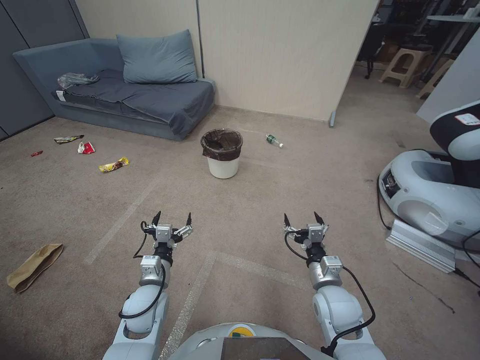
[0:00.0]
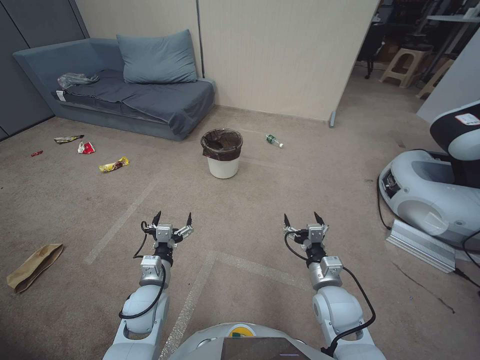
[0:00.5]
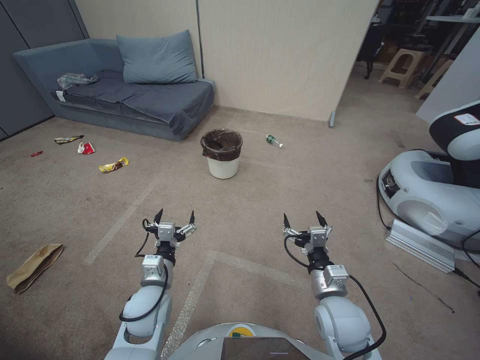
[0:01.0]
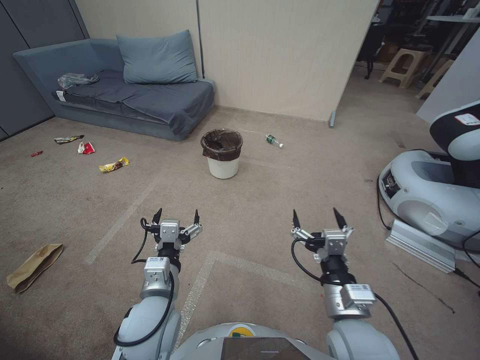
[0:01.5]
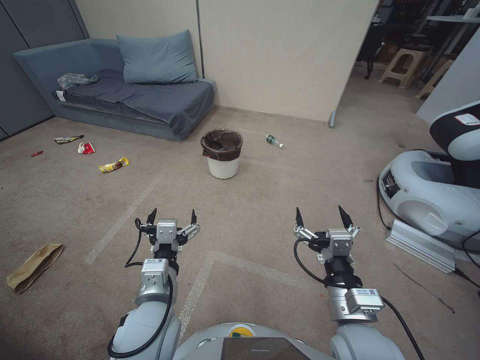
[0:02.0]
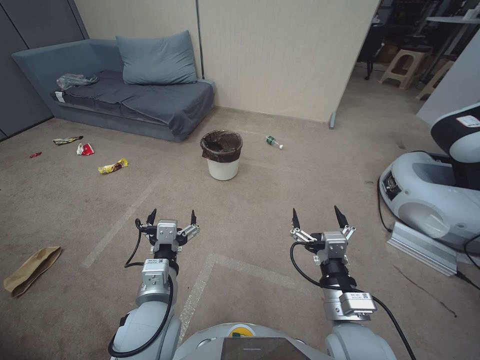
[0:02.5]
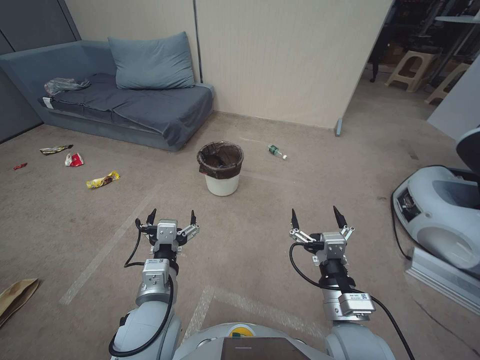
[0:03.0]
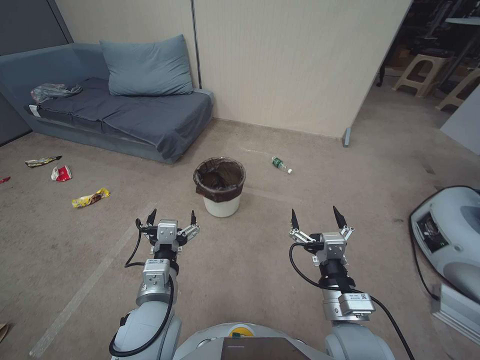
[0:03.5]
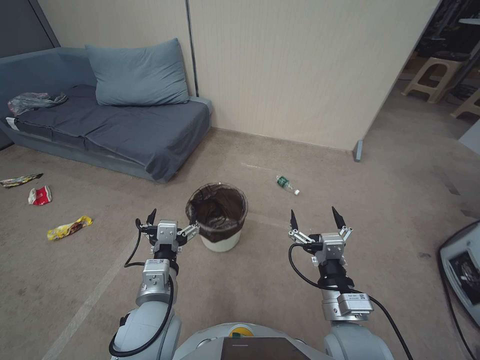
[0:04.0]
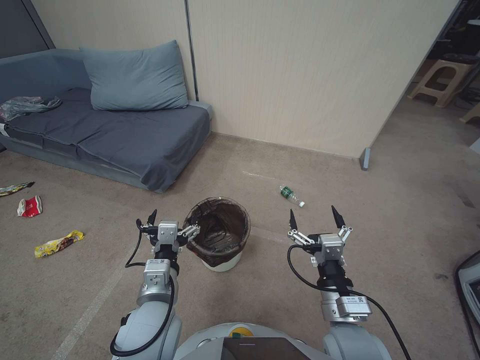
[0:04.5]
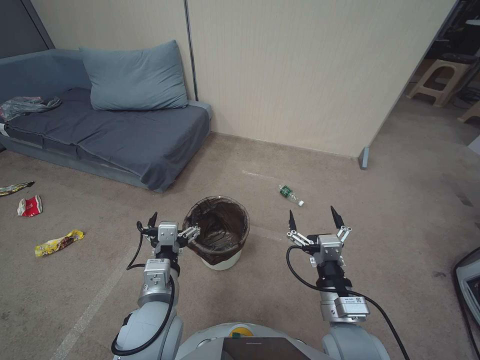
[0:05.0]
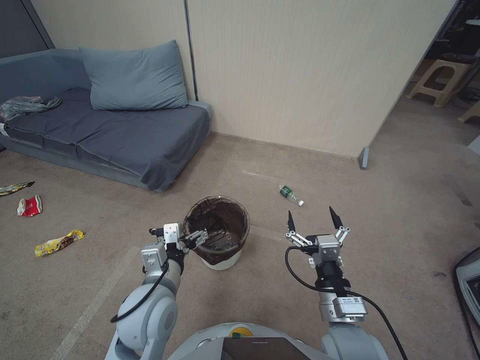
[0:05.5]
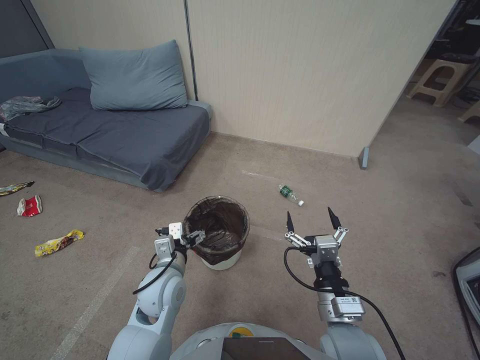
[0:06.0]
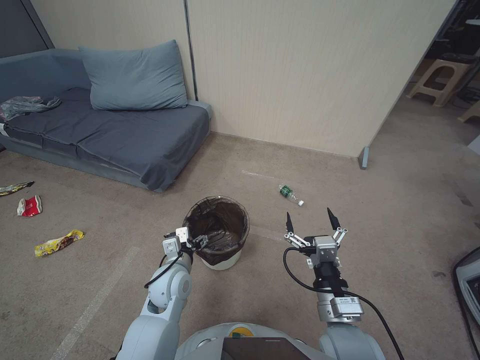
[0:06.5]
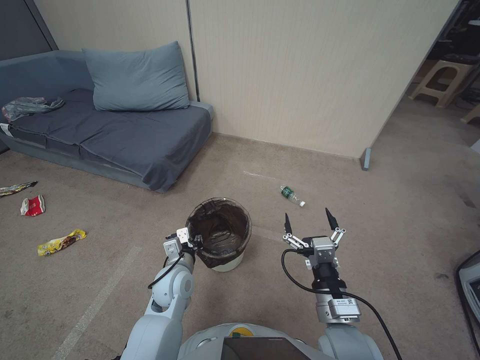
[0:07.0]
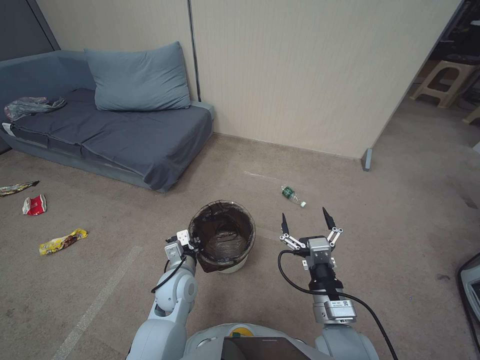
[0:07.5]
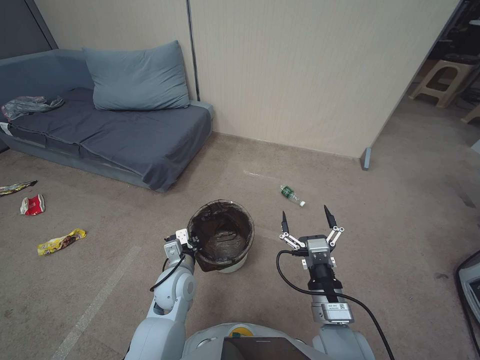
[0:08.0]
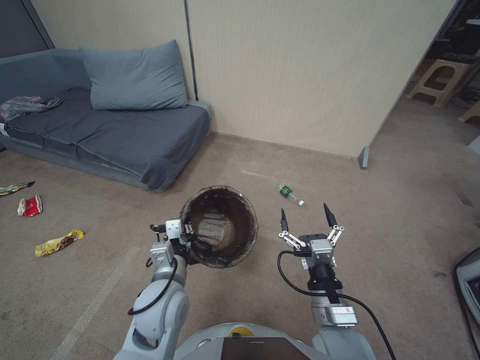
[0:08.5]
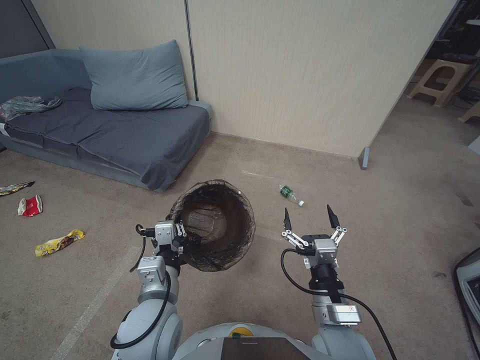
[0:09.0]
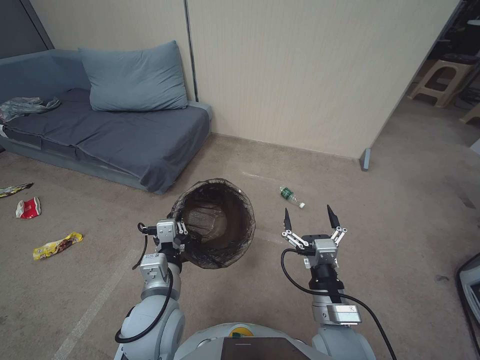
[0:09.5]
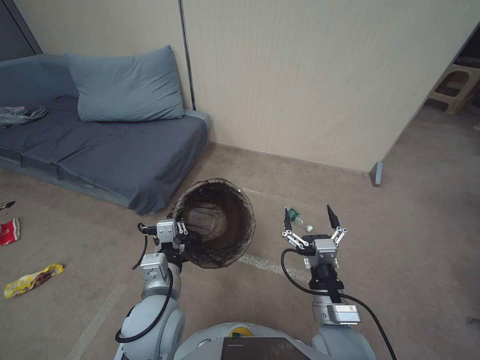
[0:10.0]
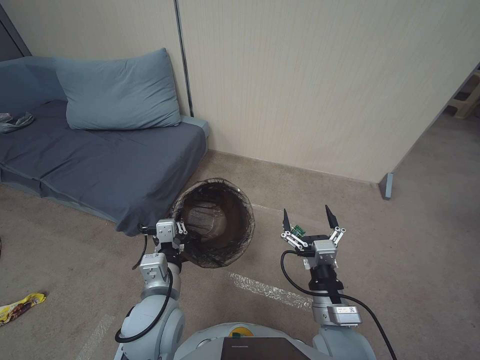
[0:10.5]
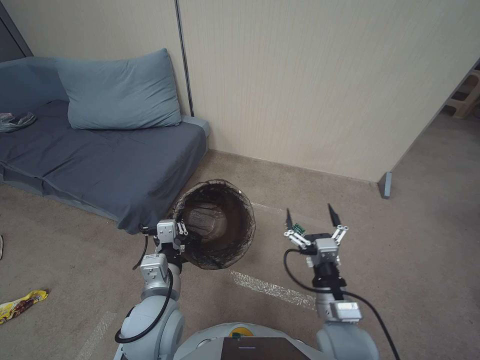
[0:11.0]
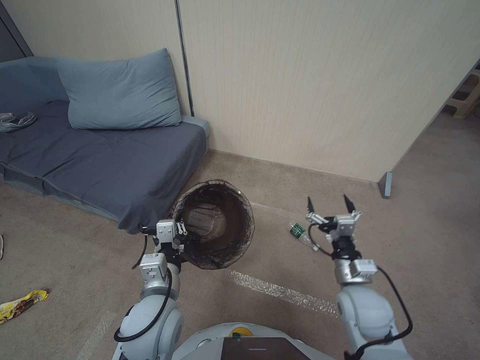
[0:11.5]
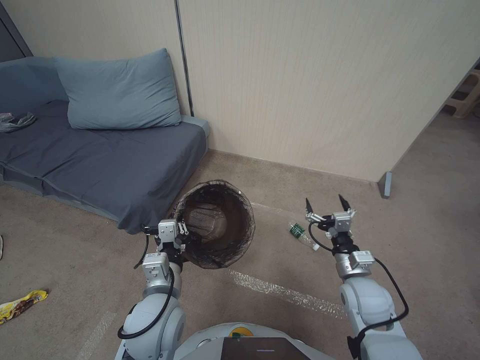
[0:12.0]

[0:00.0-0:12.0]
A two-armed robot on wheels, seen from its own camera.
Task of the whole recording: Pick up the trash bin, then pick up the garbage from the floor and place it into the trash bin.
0:04.0 to 0:06.0: The left gripper shifts some 10 cm forward and downward.
0:06.0 to 0:08.0: The left gripper shifts about 5 cm downward, and closes its fingers.
0:08.0 to 0:10.0: The left gripper moves upward and backward, about 15 cm.
0:10.0 to 0:12.0: The right gripper moves to the right and forward, roughly 15 cm.

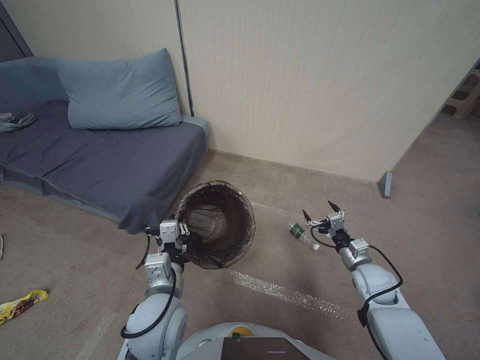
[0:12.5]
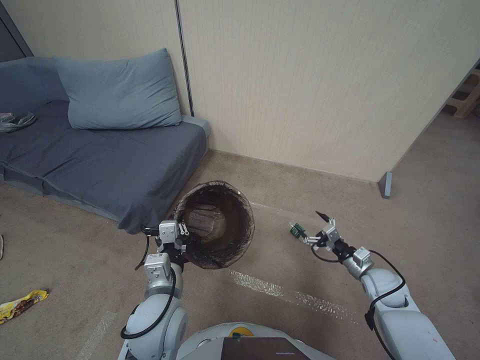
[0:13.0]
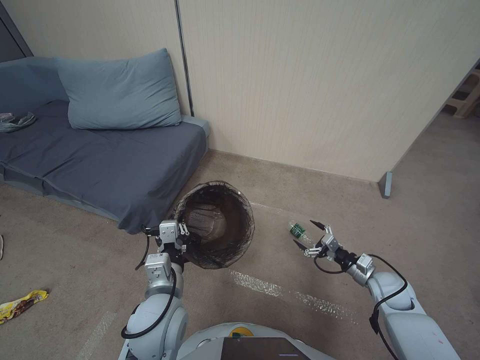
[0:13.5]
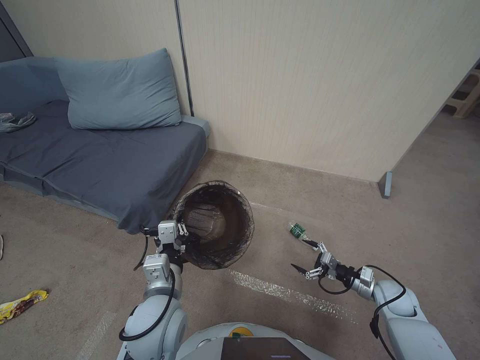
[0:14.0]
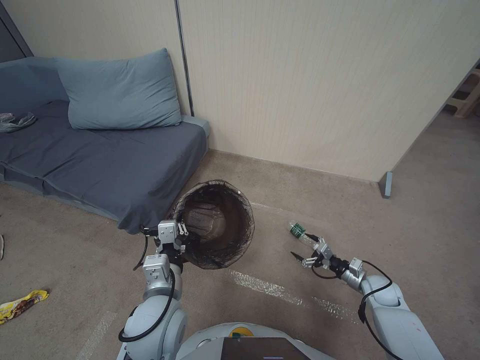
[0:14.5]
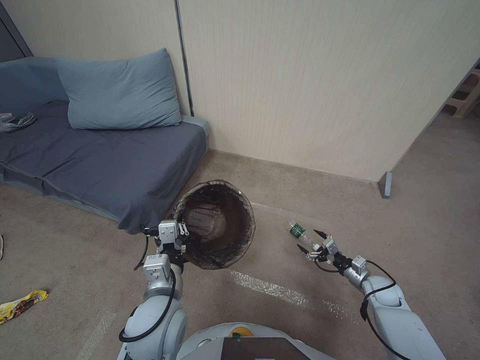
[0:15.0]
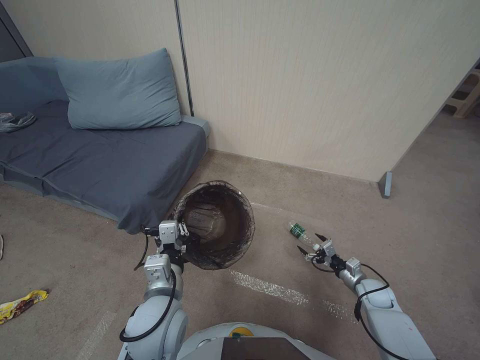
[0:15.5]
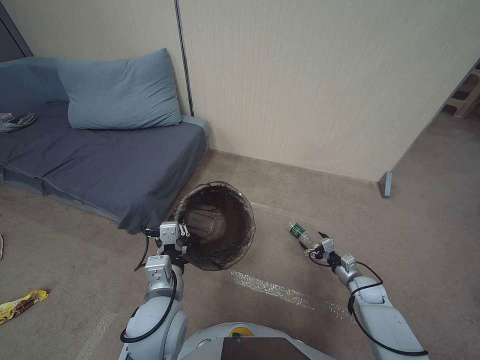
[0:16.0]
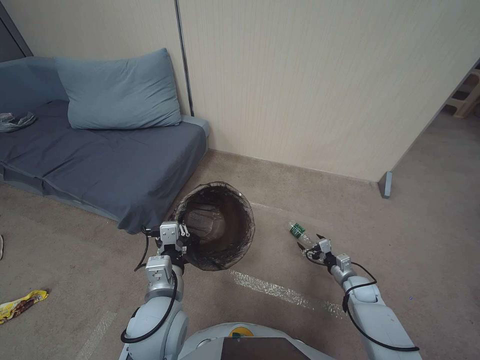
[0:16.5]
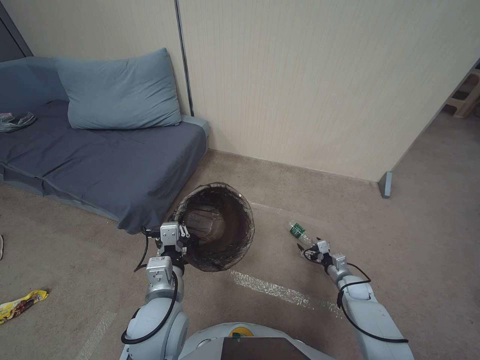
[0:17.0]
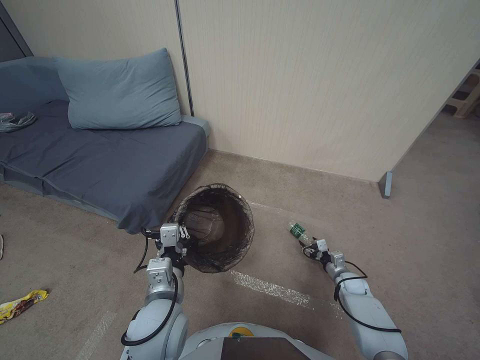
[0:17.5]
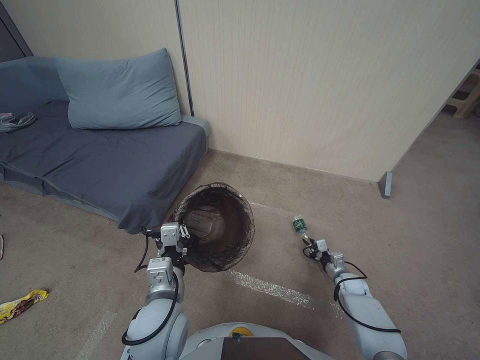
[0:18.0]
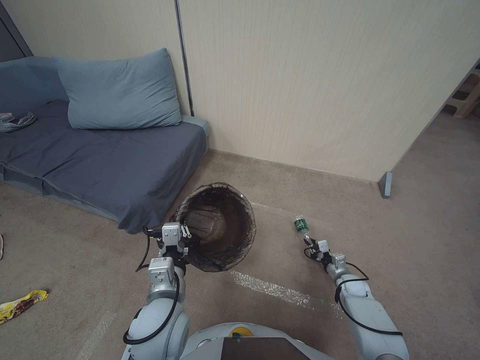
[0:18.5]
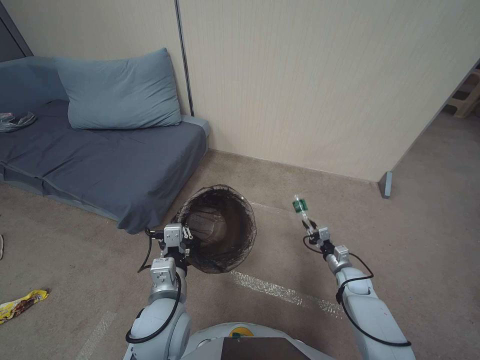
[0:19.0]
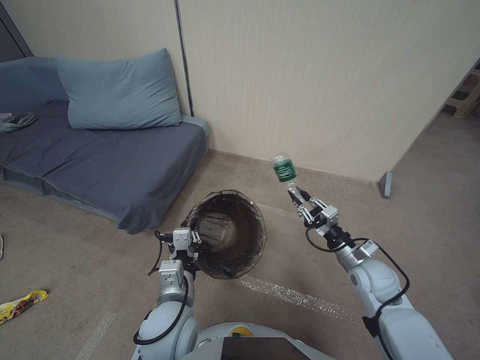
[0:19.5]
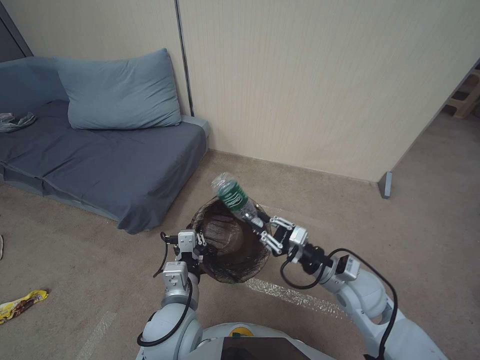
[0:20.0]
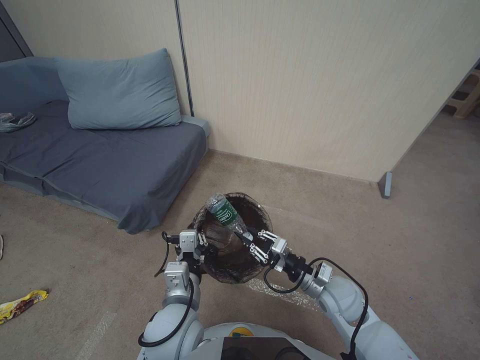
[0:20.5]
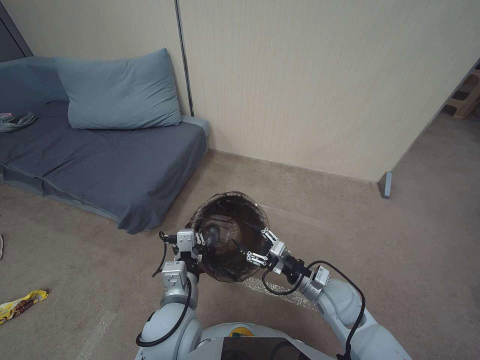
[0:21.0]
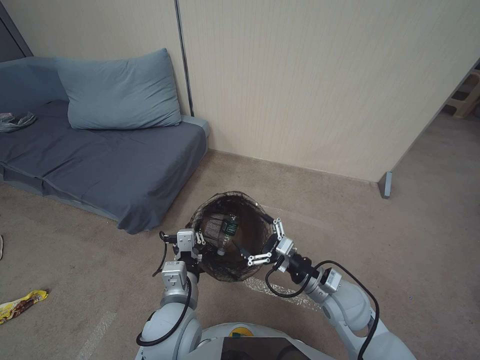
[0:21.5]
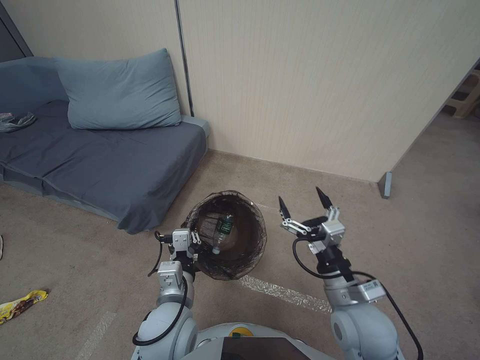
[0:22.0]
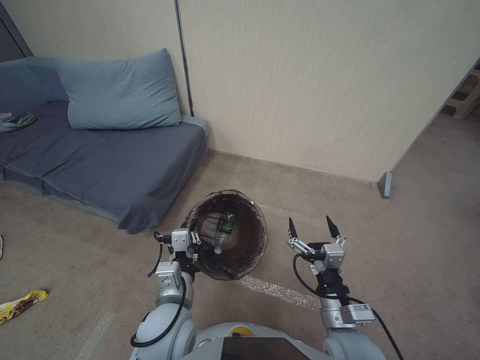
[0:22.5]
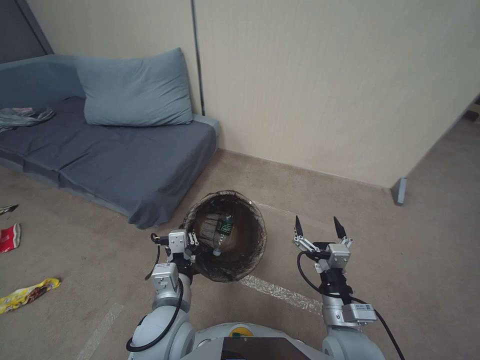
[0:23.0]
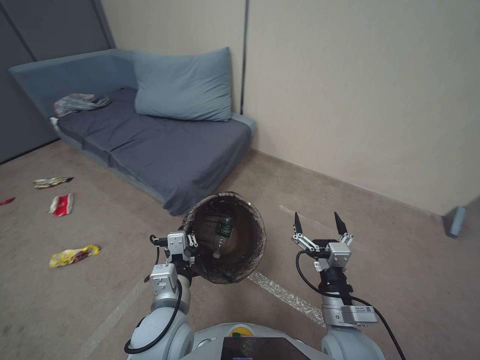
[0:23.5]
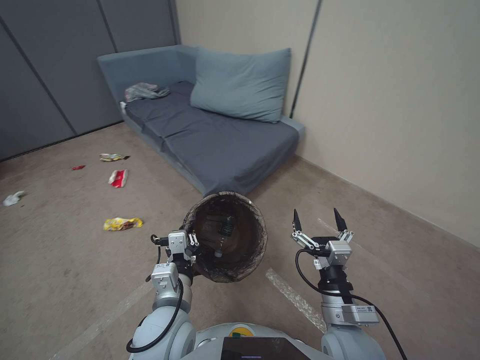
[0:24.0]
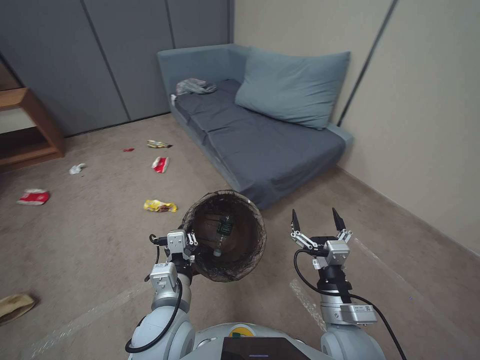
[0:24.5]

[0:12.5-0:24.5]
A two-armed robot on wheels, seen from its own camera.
Task of the whole recording: Pick up the trash bin, then pick up the garbage from the floor and place it into the trash bin.
0:12.5 to 0:14.5: The right gripper heads downward and to the right, covering about 10 cm.
0:14.5 to 0:16.5: The right gripper moves downward, about 5 cm.
0:16.5 to 0:18.5: The right gripper closes up.
0:18.5 to 0:20.5: The right gripper moves upward and to the left, some 30 cm.
0:20.5 to 0:22.5: The right gripper moves backward, approximately 10 cm, and opens up.

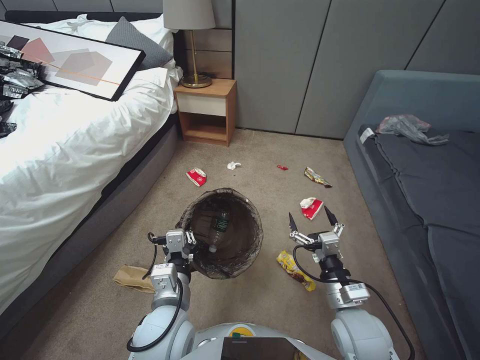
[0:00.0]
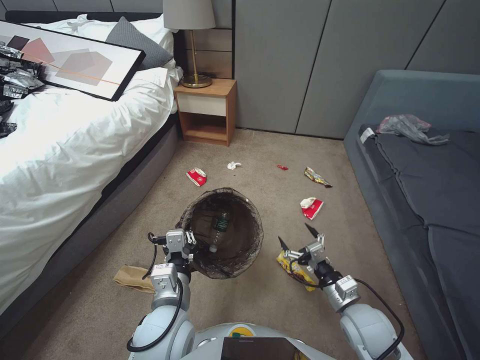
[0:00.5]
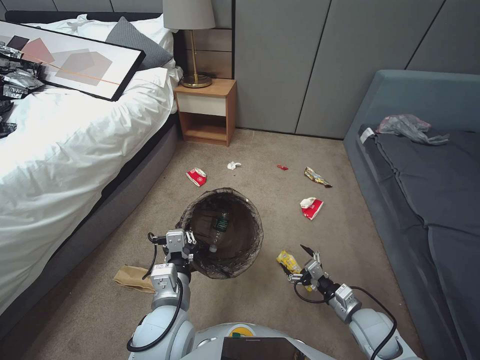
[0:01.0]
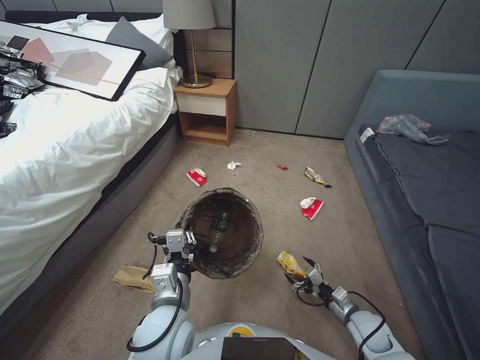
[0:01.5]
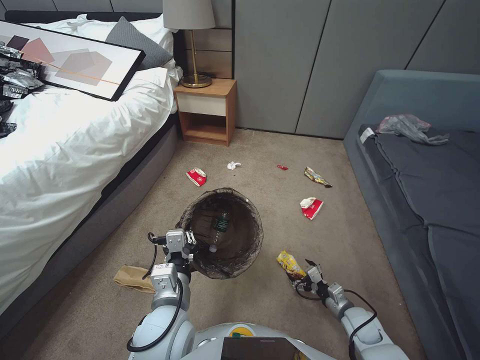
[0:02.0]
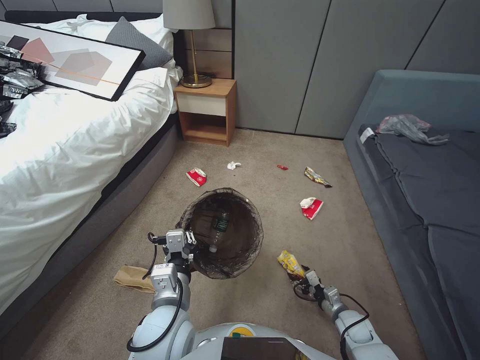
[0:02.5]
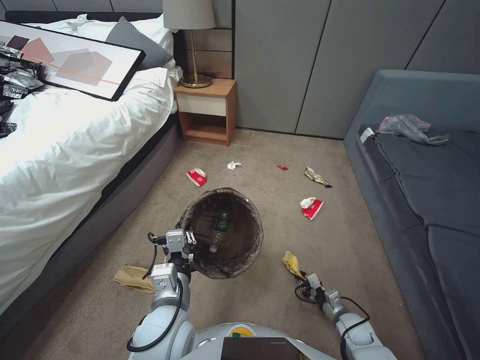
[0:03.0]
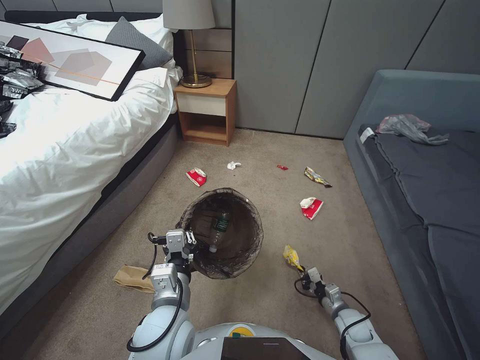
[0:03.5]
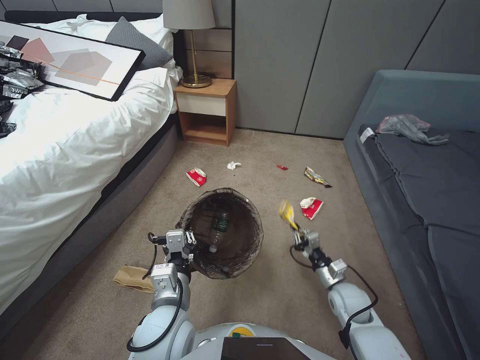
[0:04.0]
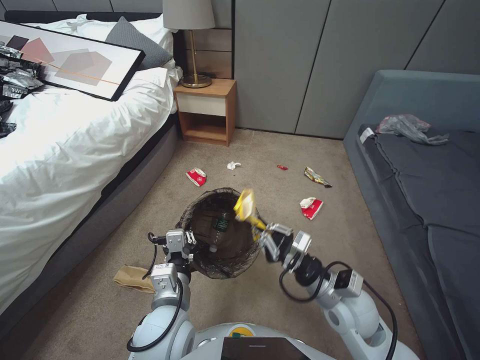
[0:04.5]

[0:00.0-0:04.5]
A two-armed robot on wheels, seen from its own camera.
Task of the whole recording: Pick up the trash bin, then pick up the garbage from the floor and place it into the trash bin.
0:00.0 to 0:02.0: The right gripper moves downward and to the right, roughly 25 cm.
0:02.0 to 0:04.5: The right gripper goes approximately 25 cm upward and to the left, and closes.
